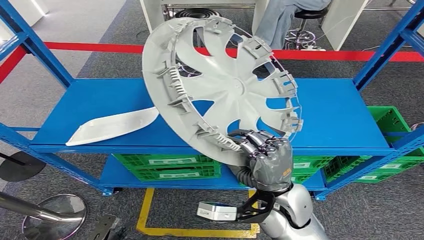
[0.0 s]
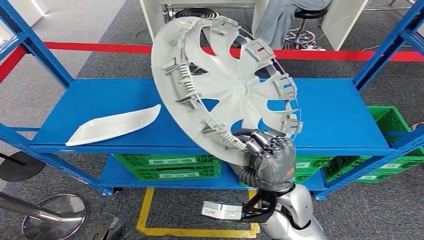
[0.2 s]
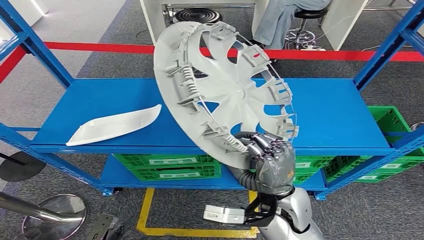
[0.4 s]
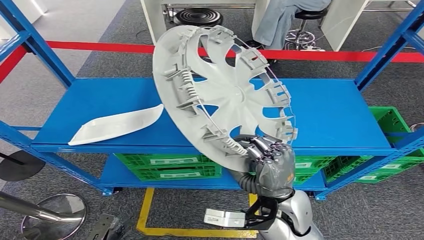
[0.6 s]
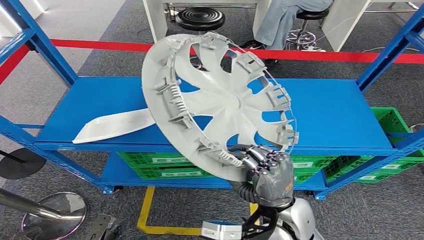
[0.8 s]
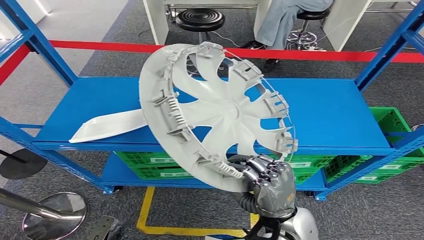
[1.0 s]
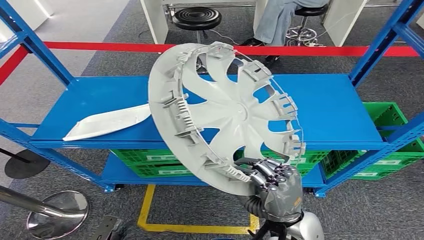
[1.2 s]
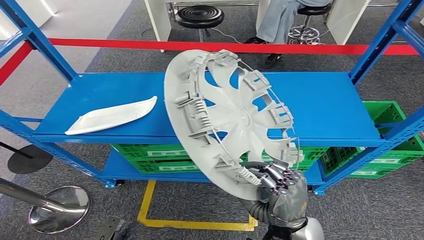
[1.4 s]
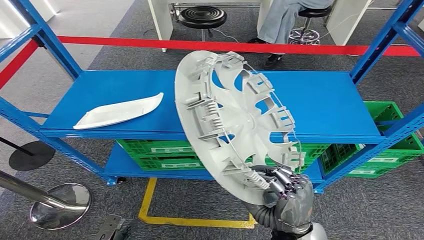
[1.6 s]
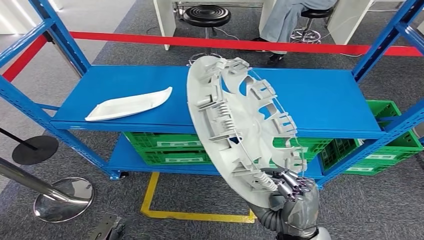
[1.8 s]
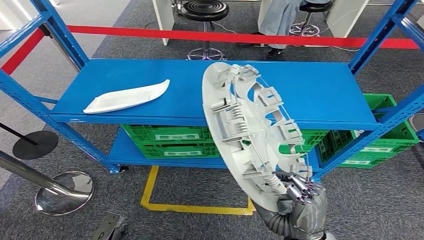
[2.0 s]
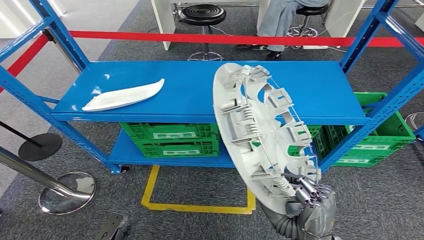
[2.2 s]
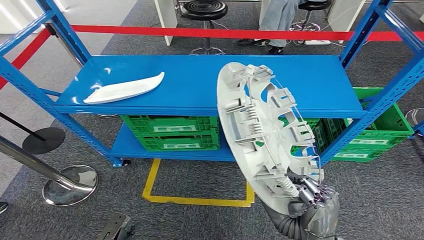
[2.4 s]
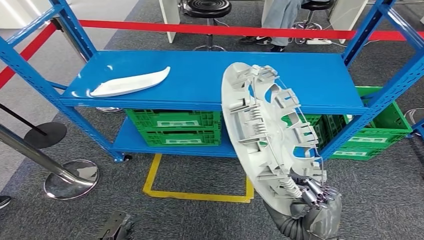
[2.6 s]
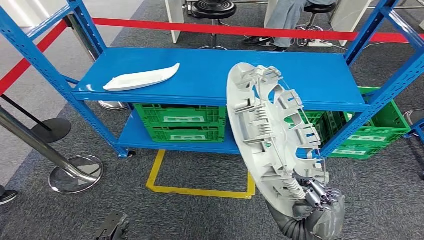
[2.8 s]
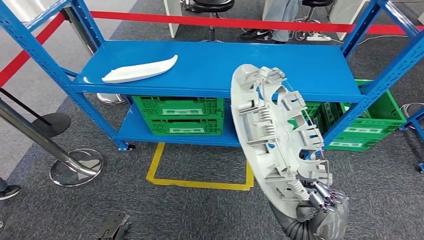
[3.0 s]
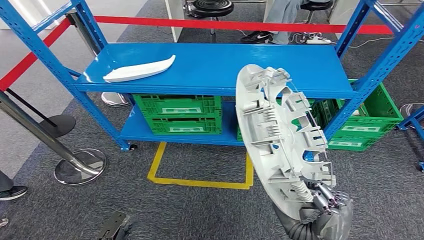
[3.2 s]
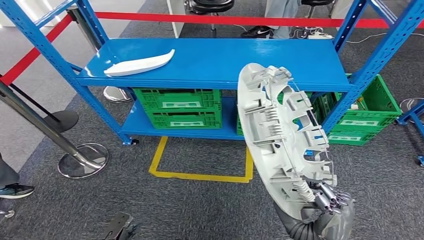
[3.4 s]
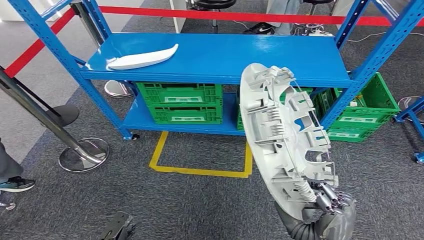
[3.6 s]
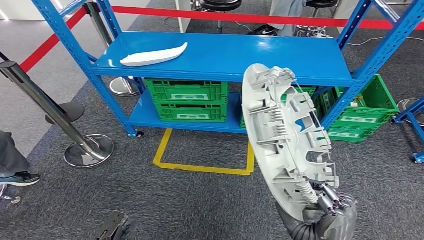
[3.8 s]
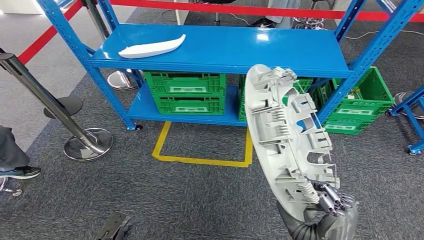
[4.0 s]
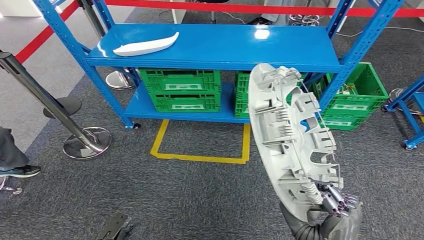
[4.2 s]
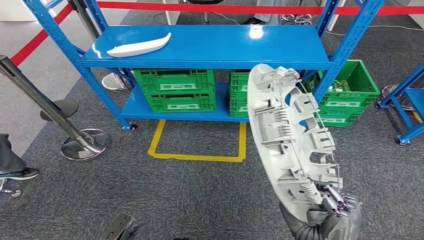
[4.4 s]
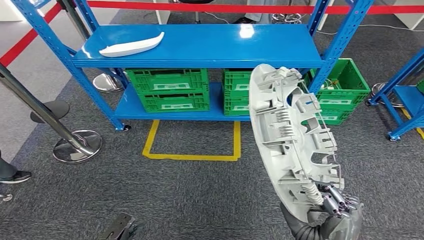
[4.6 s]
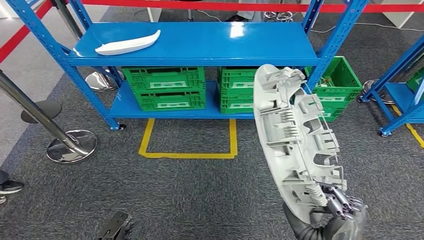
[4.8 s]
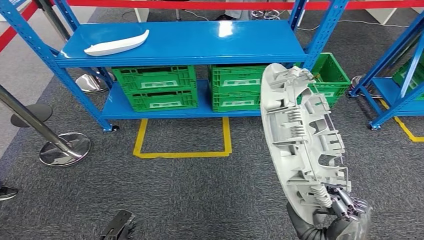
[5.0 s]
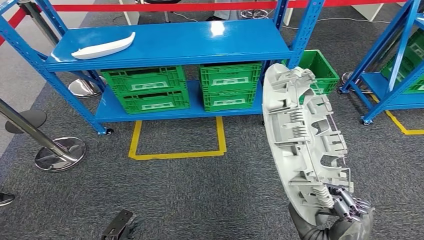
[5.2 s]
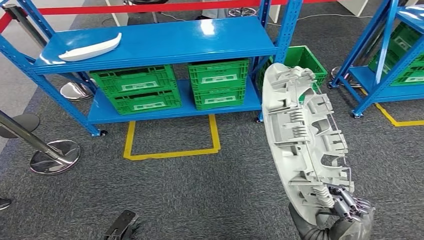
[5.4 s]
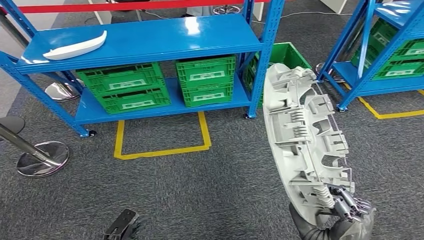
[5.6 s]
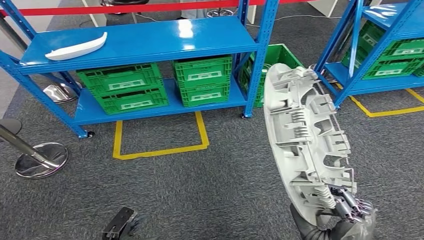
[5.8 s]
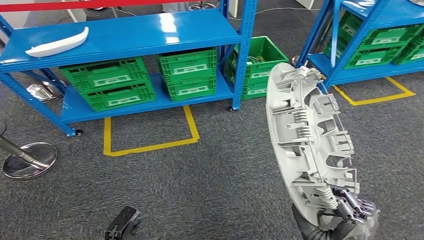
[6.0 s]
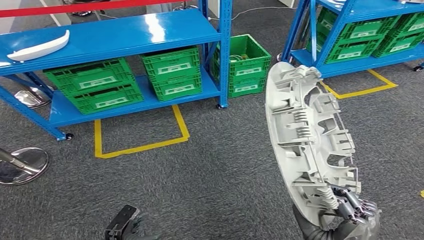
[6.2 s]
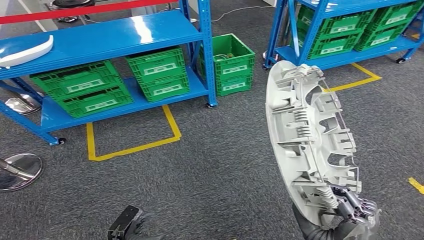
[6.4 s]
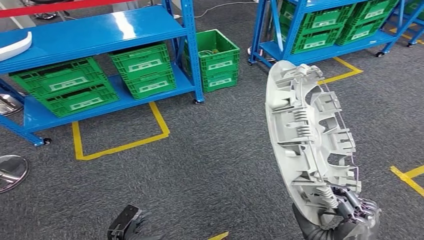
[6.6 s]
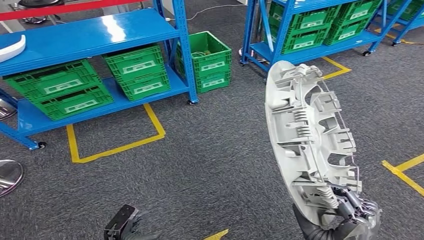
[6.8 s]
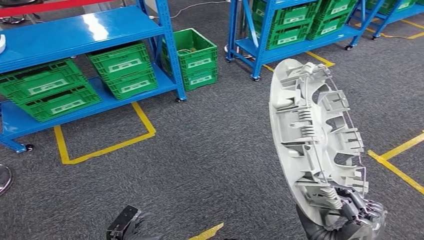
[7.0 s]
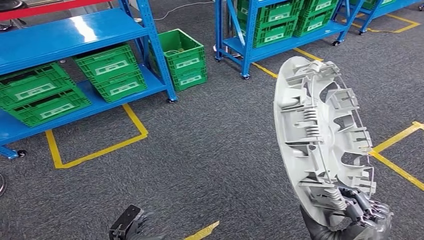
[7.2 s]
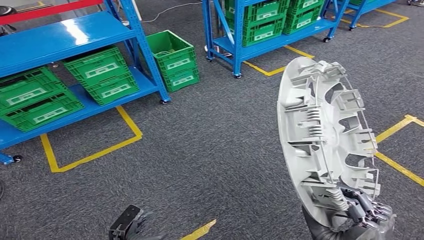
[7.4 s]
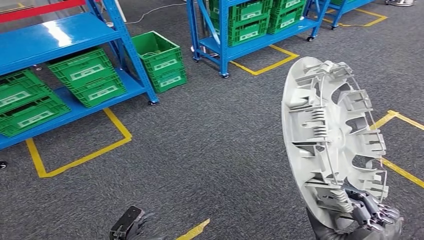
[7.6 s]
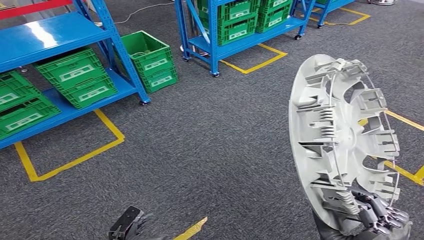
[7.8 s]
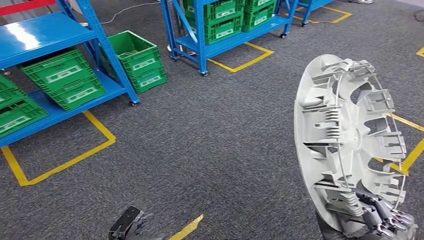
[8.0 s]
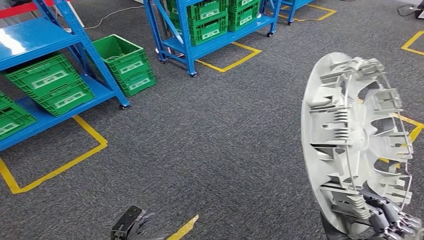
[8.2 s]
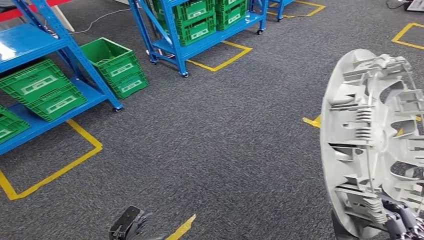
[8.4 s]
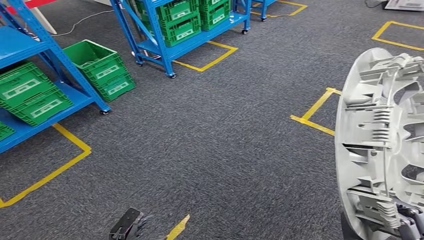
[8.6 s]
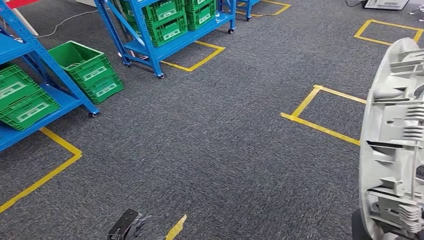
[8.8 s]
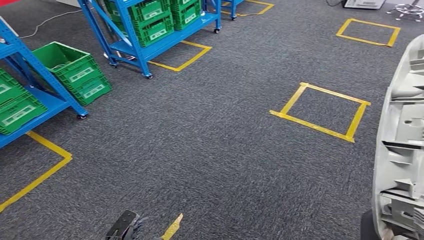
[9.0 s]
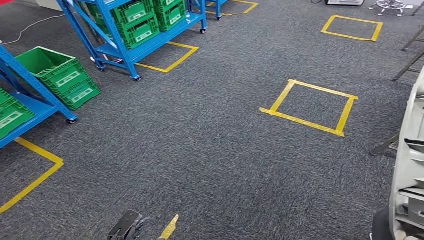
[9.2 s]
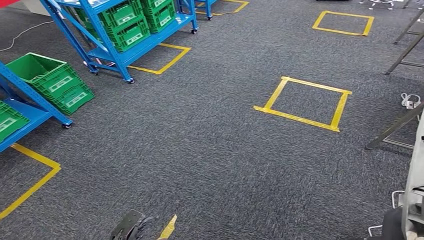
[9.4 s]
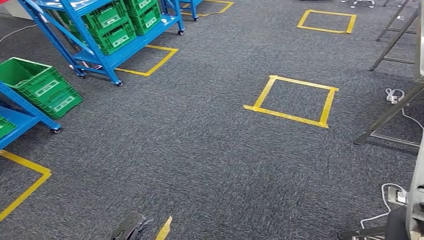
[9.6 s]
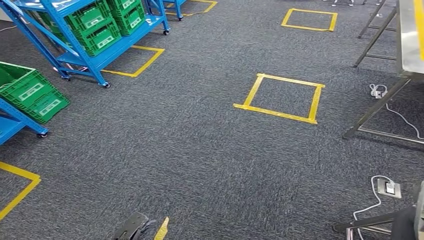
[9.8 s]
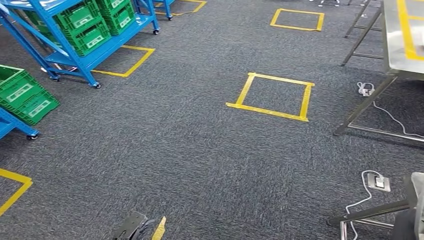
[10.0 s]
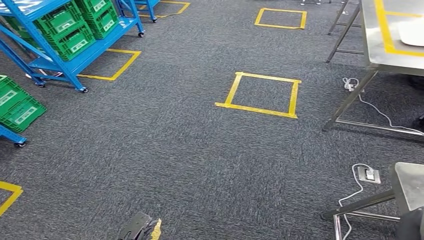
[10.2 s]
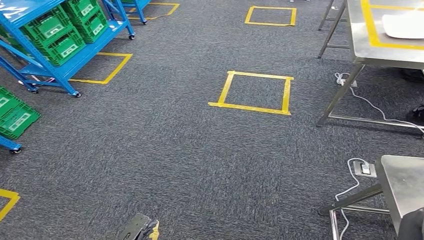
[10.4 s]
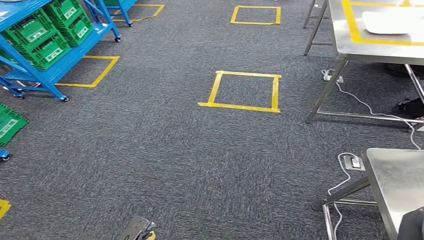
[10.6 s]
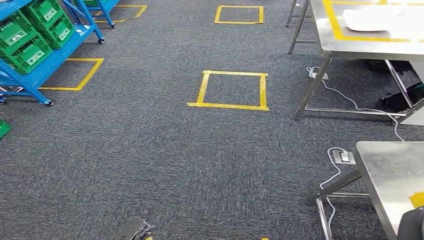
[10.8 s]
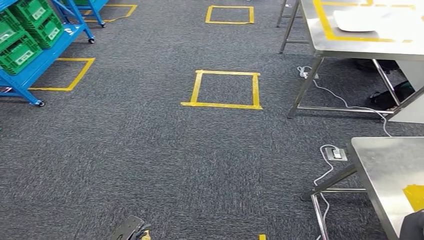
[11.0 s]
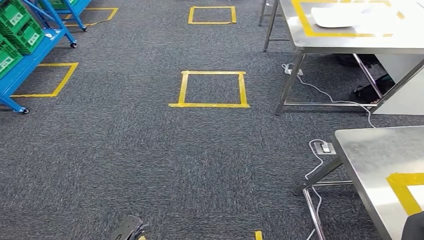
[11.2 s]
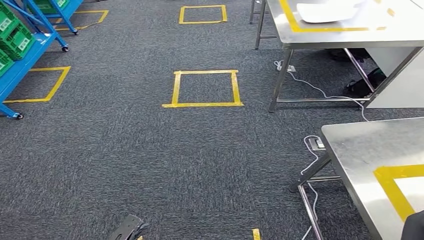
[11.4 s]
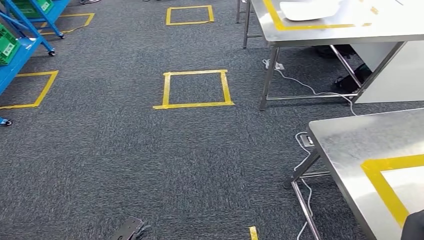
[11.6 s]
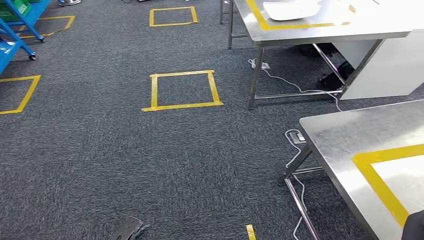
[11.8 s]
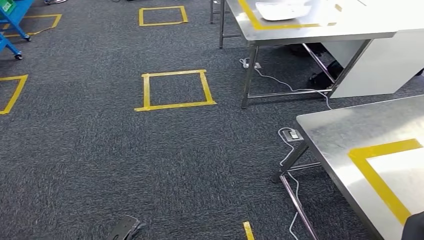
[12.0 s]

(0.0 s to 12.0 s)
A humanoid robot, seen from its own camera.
Step, 0.0 s - 3.2 s: Pick up the small component from the shelf.

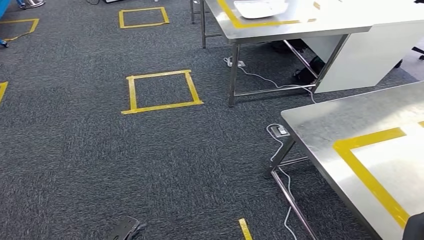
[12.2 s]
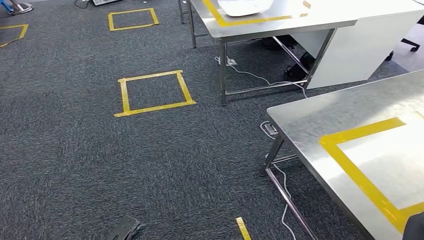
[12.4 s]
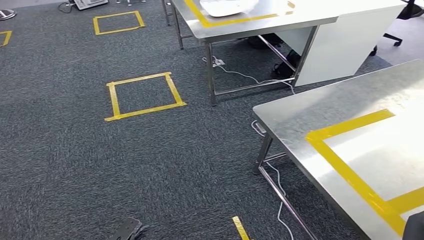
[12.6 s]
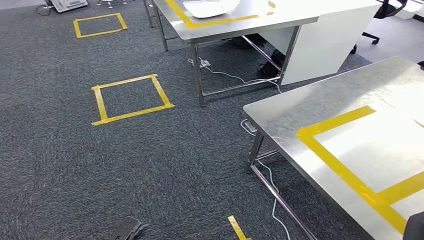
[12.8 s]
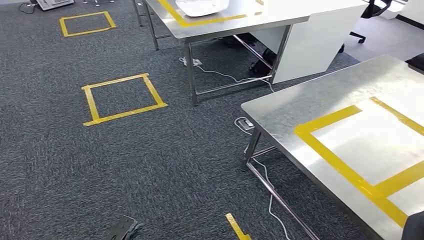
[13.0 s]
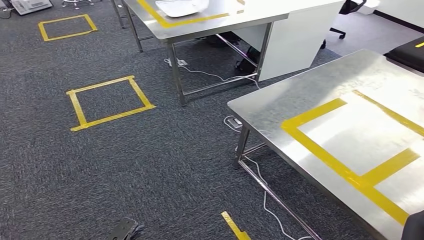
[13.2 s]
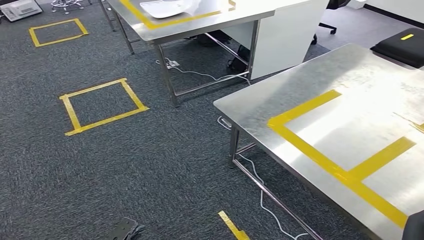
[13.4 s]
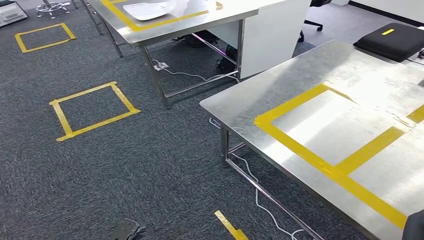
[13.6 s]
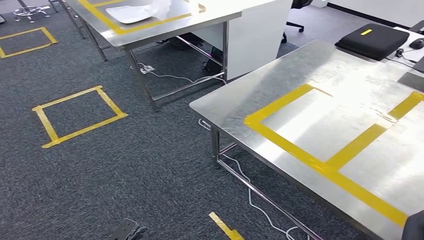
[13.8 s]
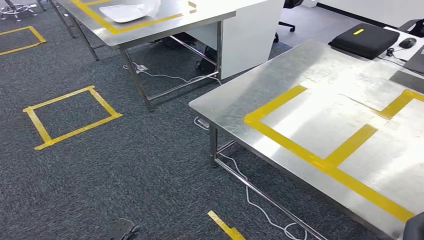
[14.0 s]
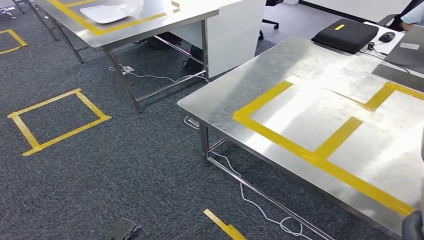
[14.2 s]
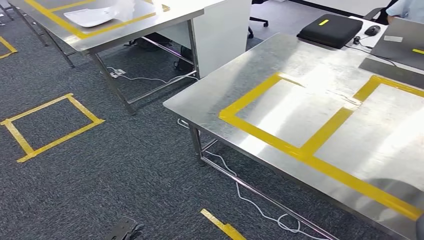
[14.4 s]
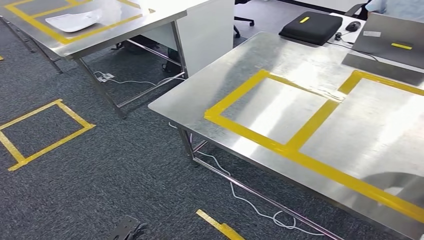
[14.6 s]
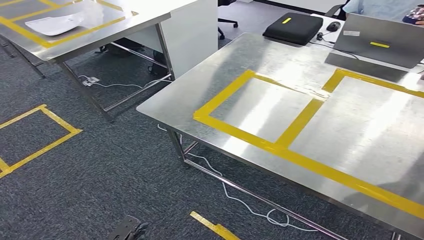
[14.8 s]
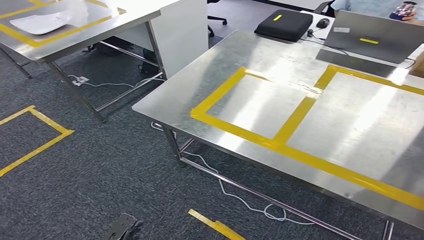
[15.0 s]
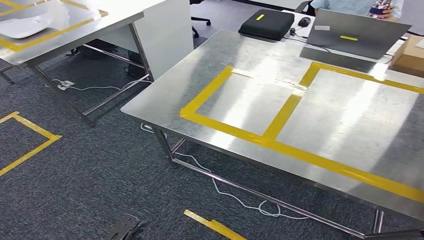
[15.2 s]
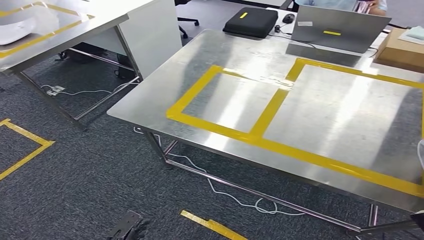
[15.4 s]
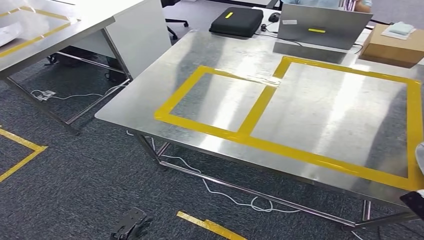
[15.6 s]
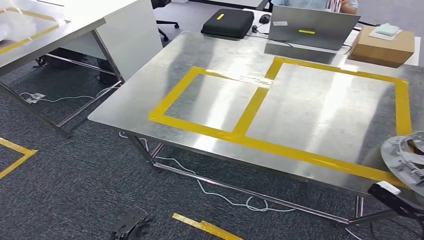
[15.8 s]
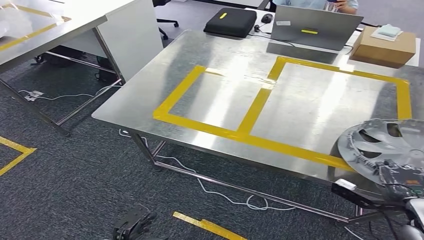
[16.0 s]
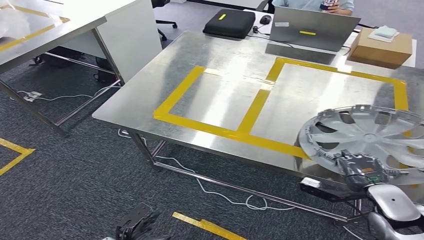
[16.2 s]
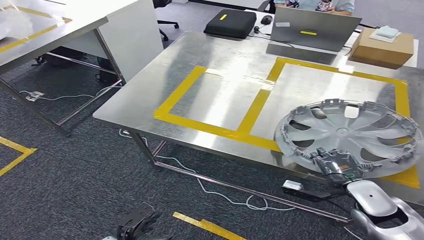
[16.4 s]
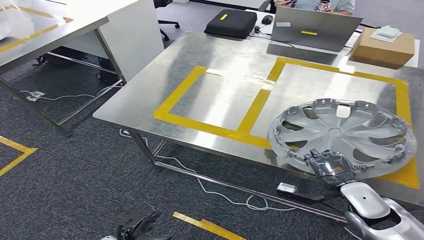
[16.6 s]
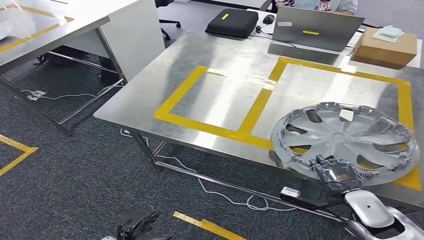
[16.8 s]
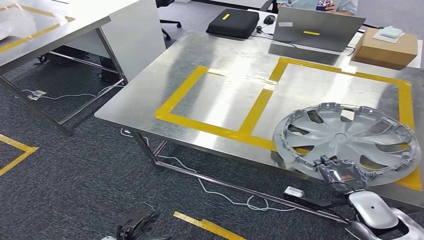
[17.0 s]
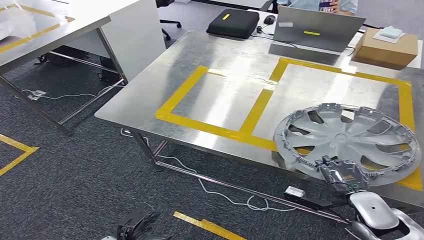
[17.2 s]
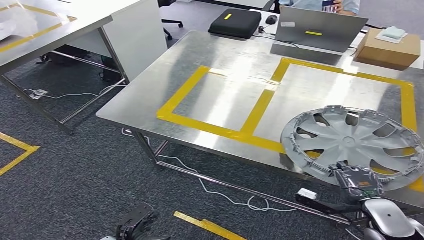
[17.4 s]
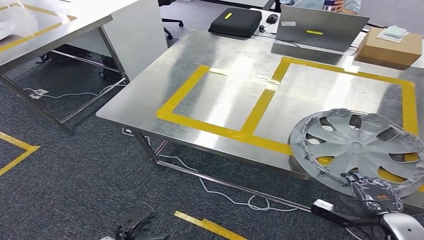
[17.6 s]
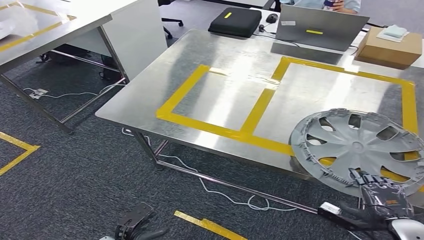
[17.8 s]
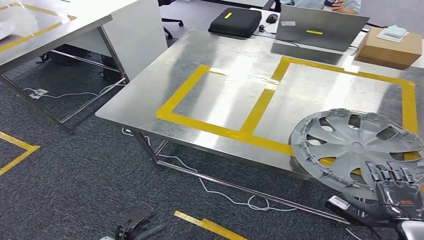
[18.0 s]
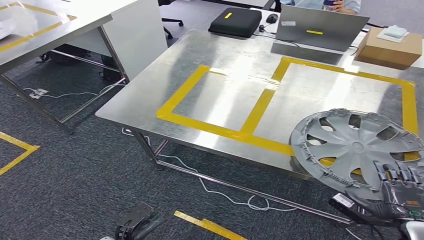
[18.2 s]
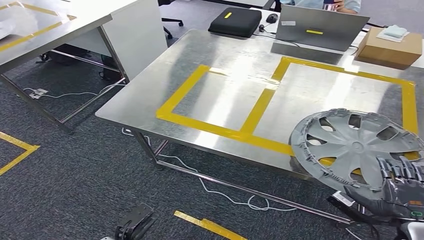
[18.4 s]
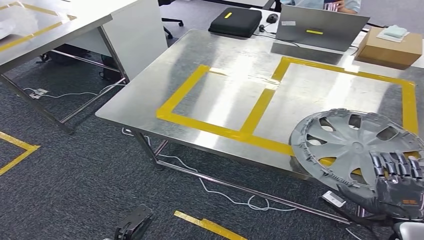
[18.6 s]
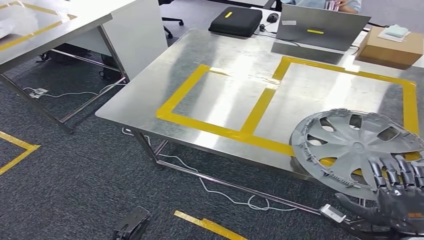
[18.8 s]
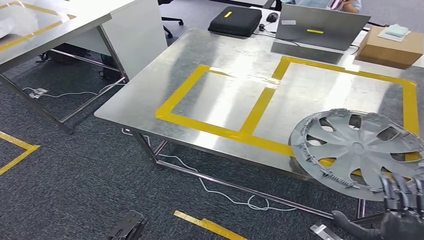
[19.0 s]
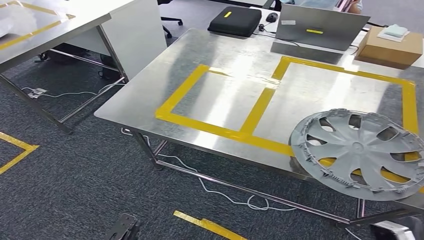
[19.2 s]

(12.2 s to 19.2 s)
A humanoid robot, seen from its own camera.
Step, 12.2 s - 15.6 s: Move the small component to the workbench.
17.8 s - 19.2 s: The left hand ends up approximately 5 cm from where it was. Meanwhile the right hand is displaced backward, to the left and upward by approximately 15 cm.
